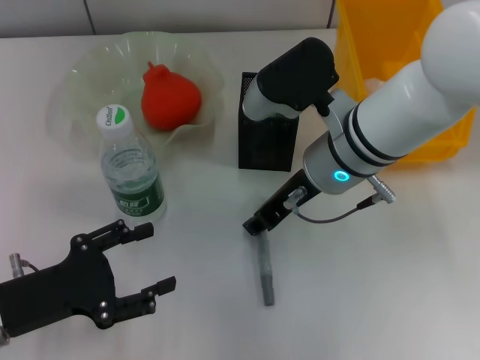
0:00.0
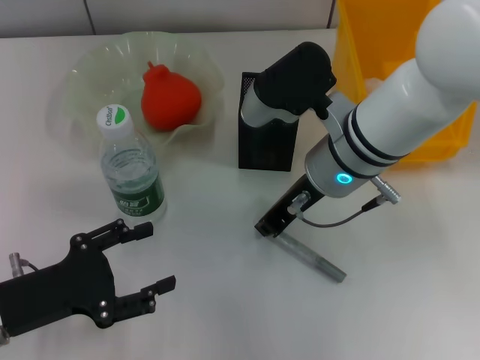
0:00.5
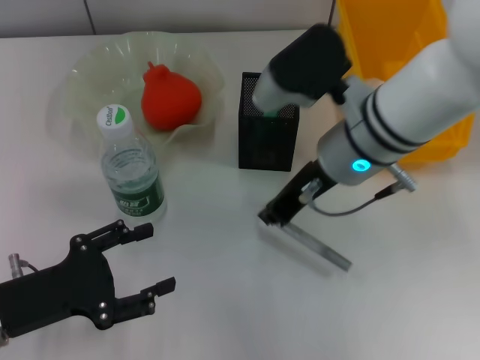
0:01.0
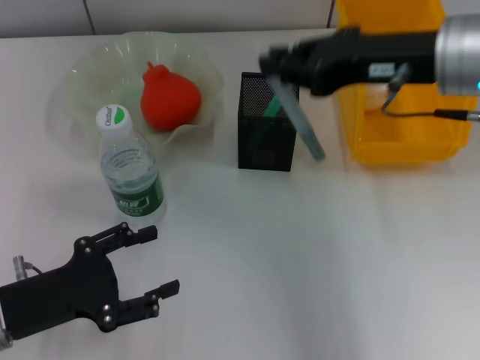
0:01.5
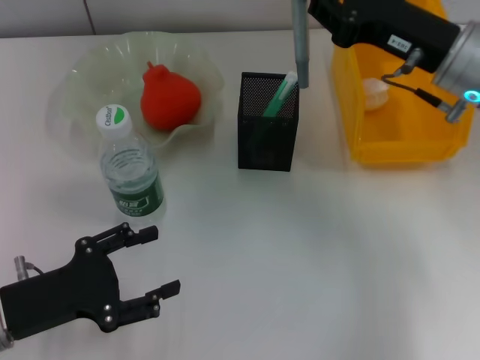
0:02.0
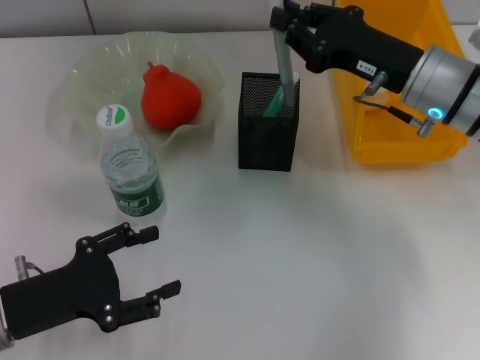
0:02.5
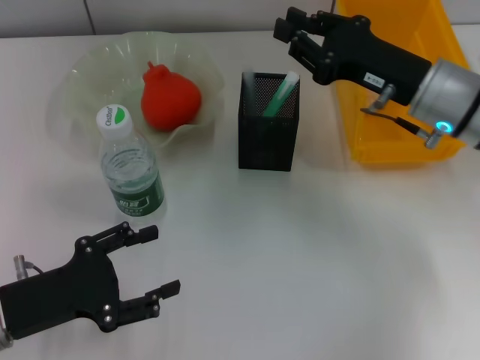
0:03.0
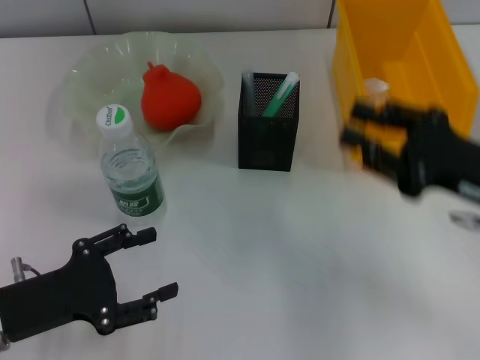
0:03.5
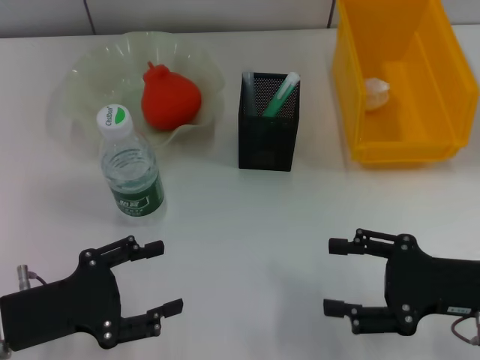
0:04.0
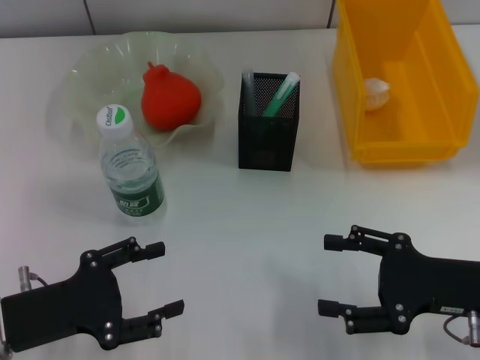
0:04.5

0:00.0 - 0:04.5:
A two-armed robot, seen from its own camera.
Step, 0:01.0 - 0:03.0: Place the gray glue into the pen holder with the right hand.
0:00.0 - 0:02.0: The right gripper travels to the right by roughly 10 cm, and closes.
0:02.0 - 0:04.5: The right gripper goes some 15 cm backward and downward, and opens its fingers.
